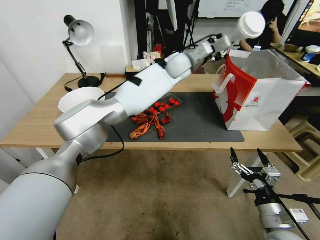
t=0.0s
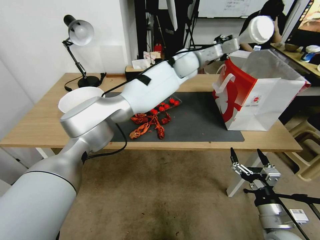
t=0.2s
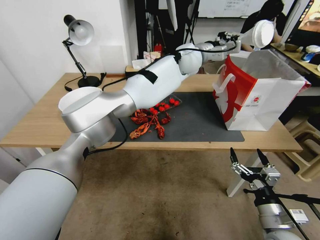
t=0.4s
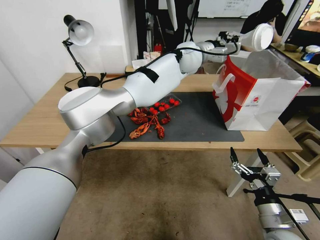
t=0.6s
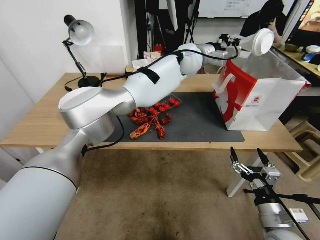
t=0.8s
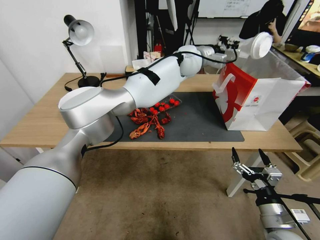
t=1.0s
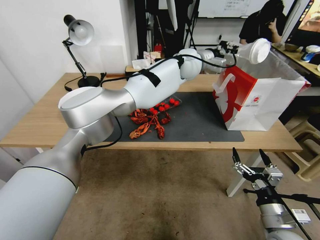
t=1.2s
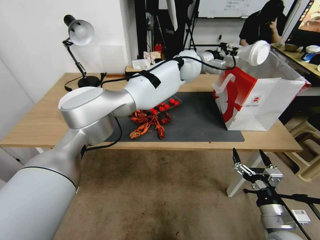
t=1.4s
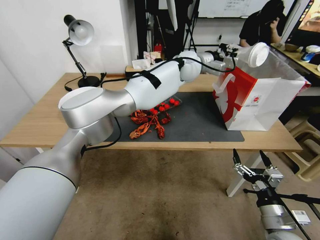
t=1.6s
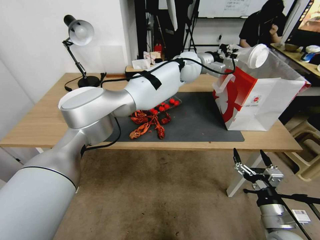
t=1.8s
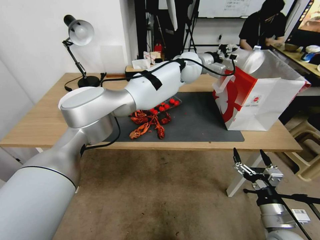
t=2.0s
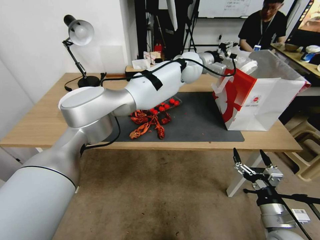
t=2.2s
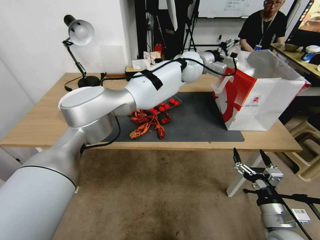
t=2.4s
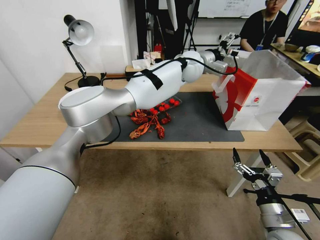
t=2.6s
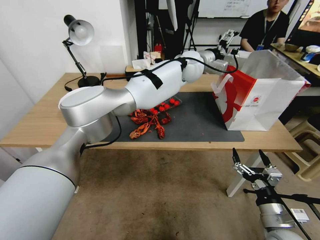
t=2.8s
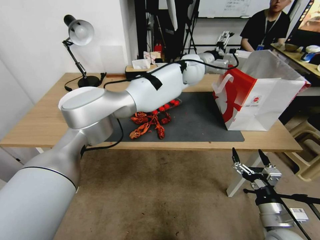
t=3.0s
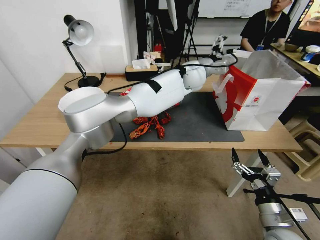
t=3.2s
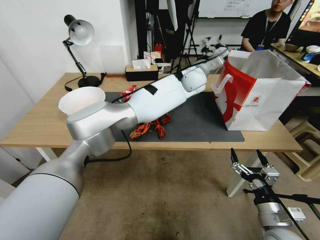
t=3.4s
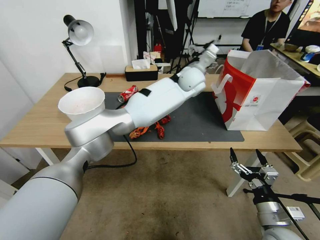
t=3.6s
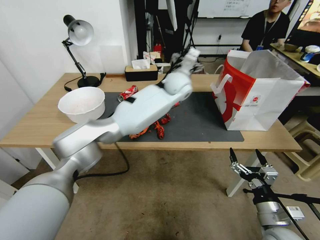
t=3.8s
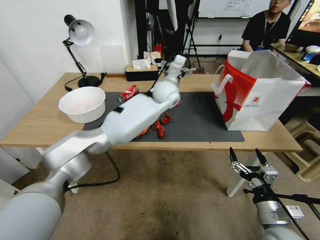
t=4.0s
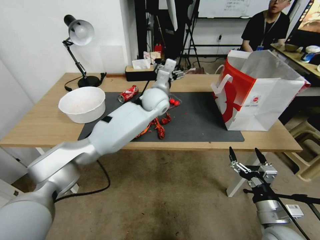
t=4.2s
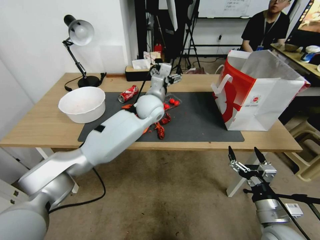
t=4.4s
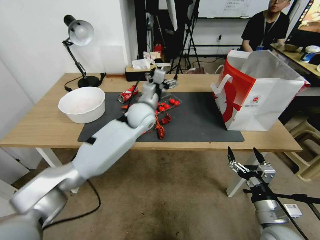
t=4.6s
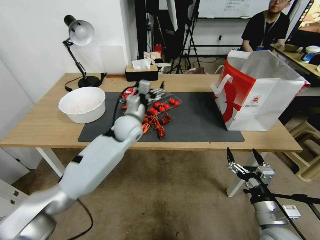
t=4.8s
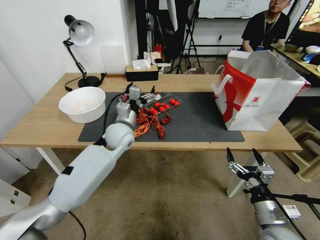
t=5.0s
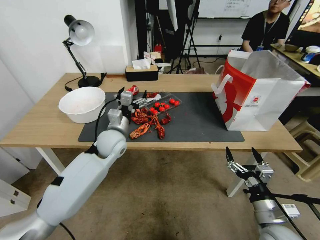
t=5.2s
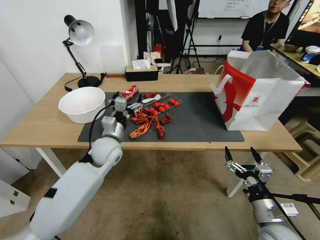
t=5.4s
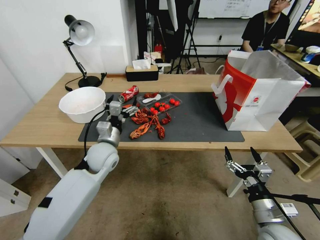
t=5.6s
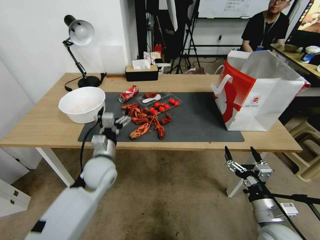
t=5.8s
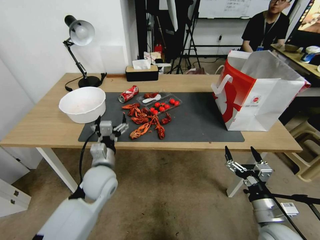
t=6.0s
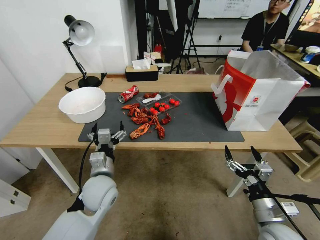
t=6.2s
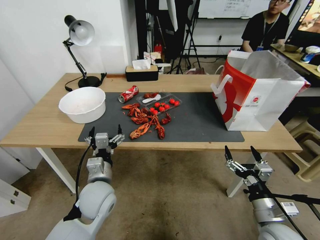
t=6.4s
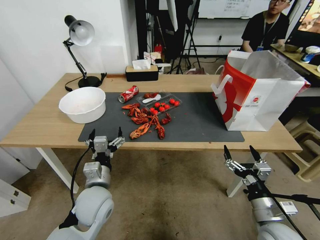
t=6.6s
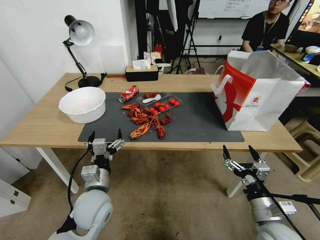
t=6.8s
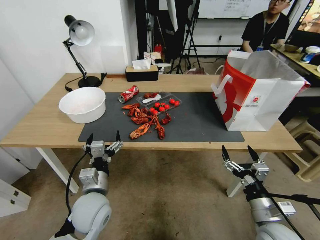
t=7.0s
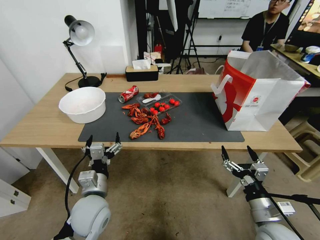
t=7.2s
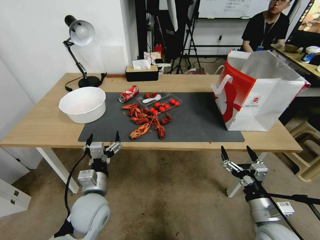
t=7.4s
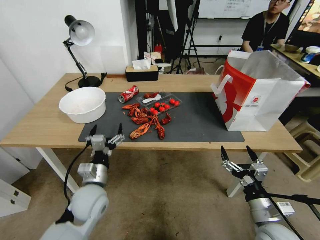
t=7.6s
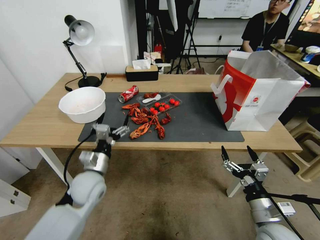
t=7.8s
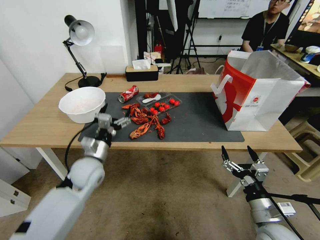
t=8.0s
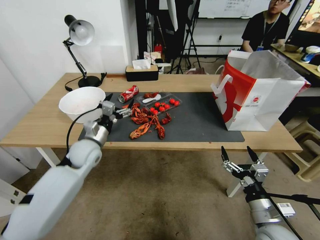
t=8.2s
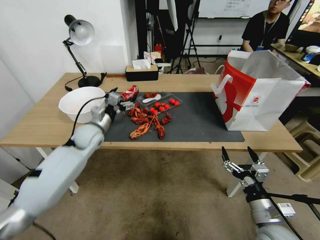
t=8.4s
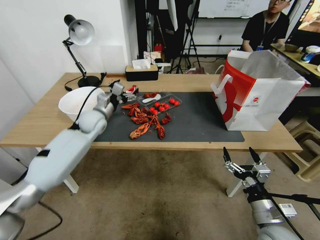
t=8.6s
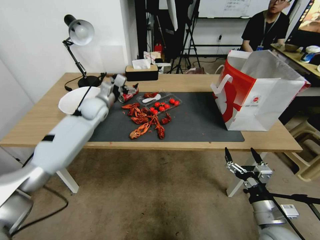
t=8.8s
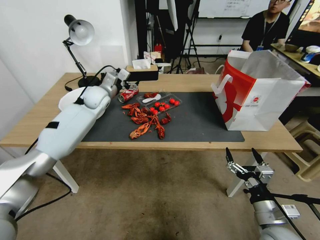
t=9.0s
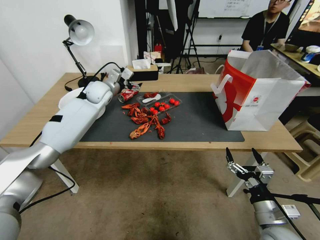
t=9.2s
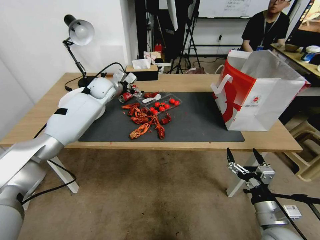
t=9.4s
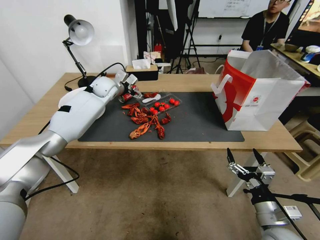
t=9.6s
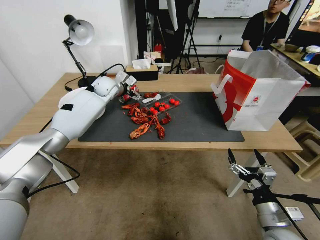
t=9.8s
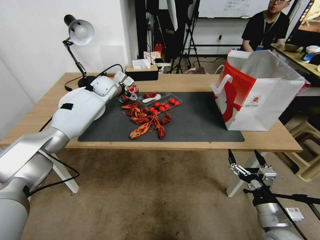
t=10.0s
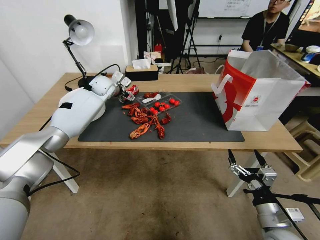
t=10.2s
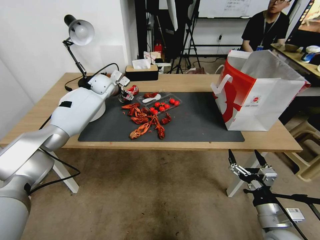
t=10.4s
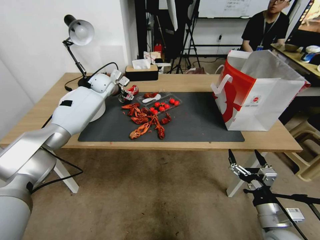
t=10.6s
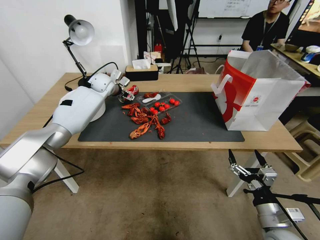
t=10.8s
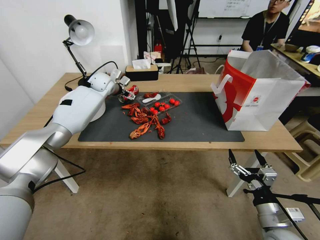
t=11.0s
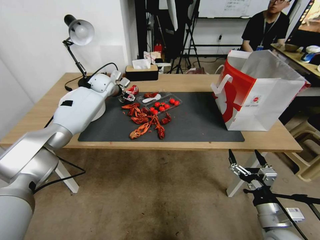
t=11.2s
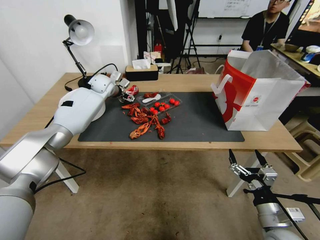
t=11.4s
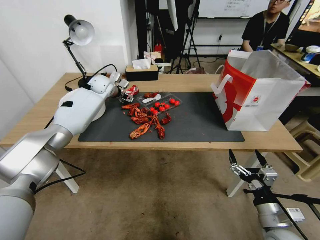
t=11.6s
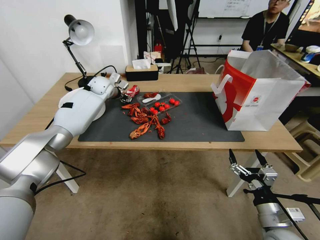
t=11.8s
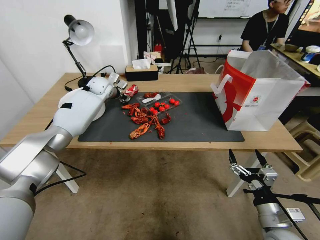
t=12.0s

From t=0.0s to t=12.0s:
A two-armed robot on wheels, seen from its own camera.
From t=1.6s to t=3.0s: The left gripper opens its fingers.
From t=3.0s to t=4.4s: The left gripper goes approximately 20 cm to the left, downward and backward.
From t=4.4s to t=6.0s: The left gripper shifts approximately 25 cm to the left, backward and downward.
From t=6.0s to t=7.6s: The left gripper travels backward by approximately 10 cm.
From t=7.6s to t=9.0s: The left gripper travels forward and upward by roughly 35 cm.
From t=9.0s to t=10.4s: The left gripper goes roughly 5 cm forward.
From t=10.4s to t=12.0s: The left gripper closes up.

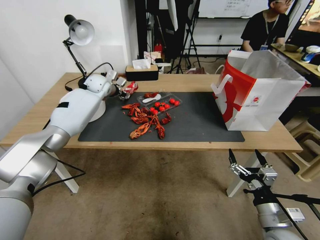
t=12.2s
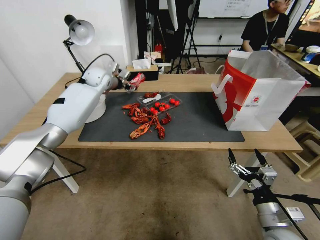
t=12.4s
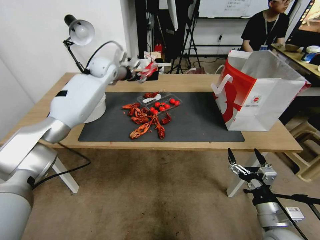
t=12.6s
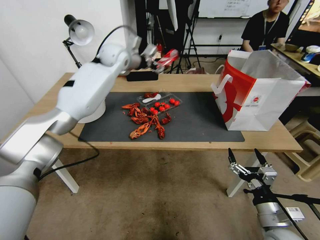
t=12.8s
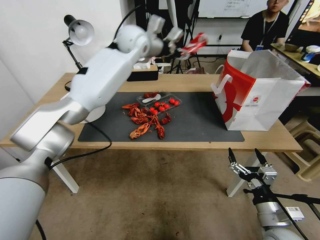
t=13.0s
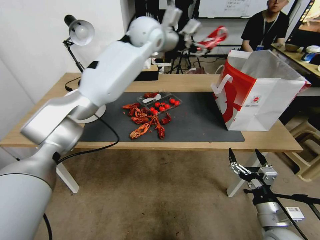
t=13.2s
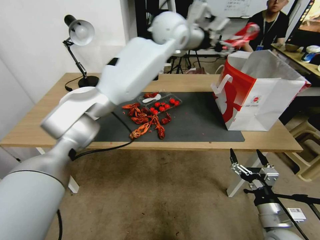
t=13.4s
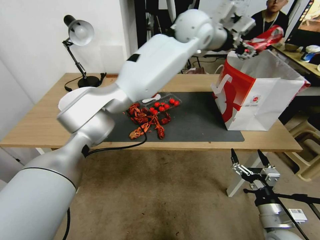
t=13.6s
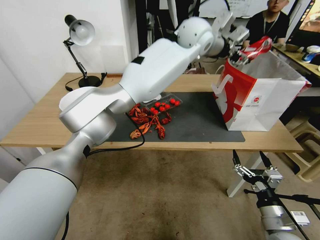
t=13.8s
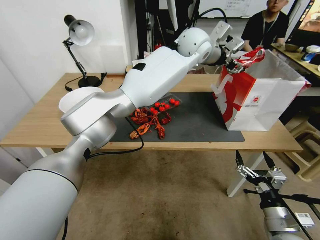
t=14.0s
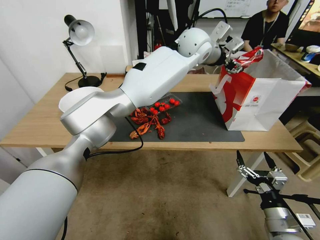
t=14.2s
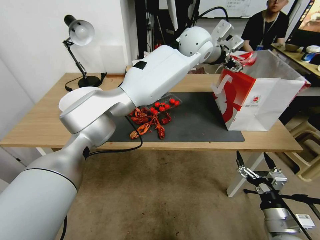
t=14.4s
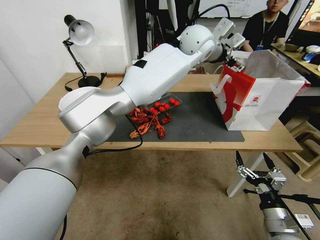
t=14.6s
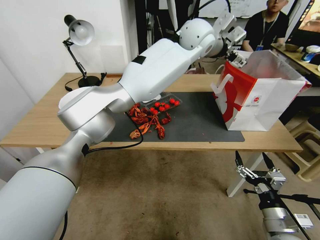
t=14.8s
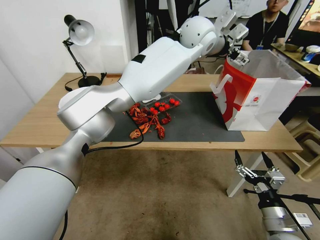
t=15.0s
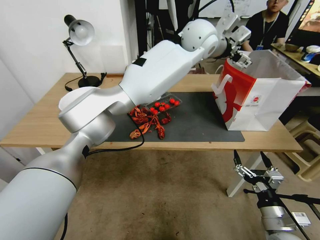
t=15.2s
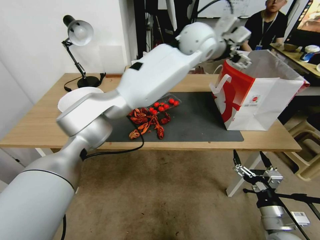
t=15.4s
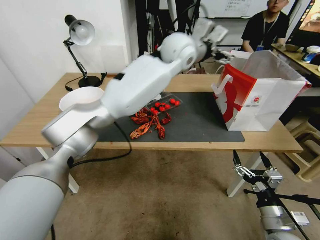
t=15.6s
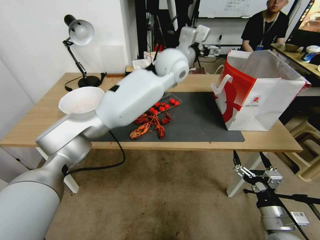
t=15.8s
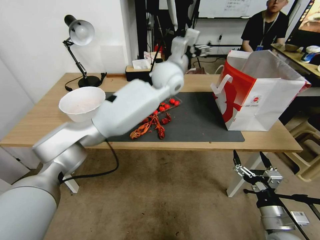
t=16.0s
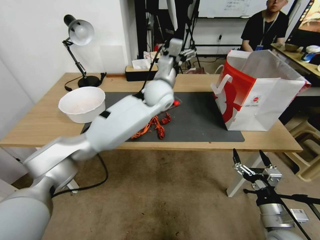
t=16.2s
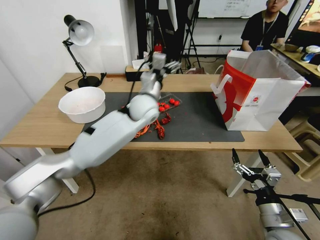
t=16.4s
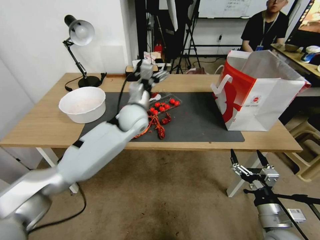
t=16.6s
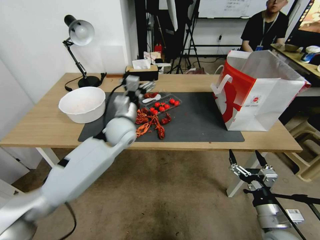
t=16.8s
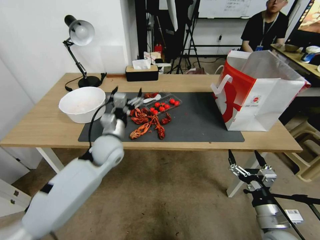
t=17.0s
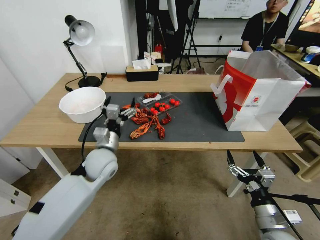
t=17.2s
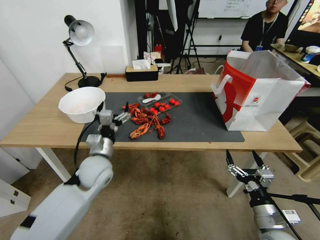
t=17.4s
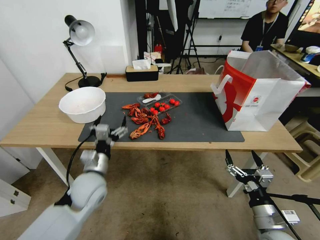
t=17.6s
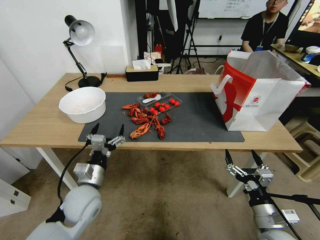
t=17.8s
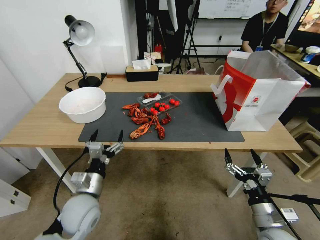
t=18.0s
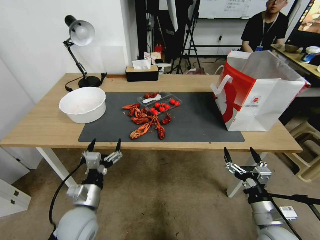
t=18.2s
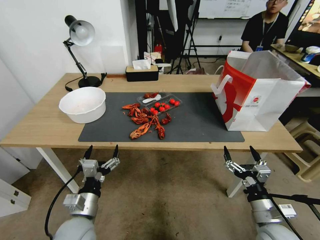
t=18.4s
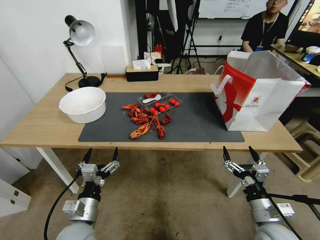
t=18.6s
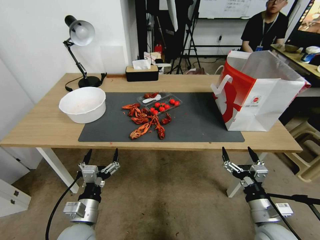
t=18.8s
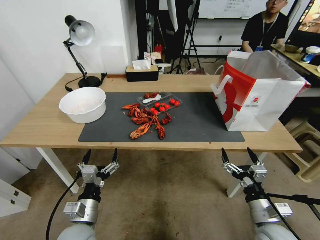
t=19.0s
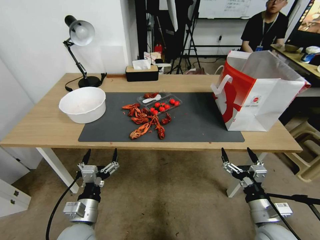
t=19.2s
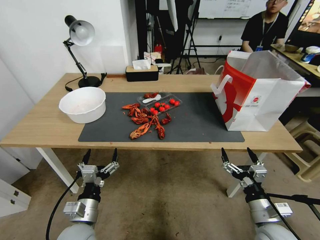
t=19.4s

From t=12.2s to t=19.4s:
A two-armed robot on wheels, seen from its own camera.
From t=12.2s to t=13.6s: The left gripper moves to the right and upward, about 40 cm.
From t=13.6s to t=15.0s: The left gripper opens up.
From t=15.0s to t=16.6s: The left gripper heads downward, to the left and backward, covering roughly 30 cm.
From t=16.6s to t=18.0s: The left gripper goes some 30 cm backward, downward and to the left.
From t=18.0s to t=19.4s: The left gripper moves backward, approximately 5 cm.

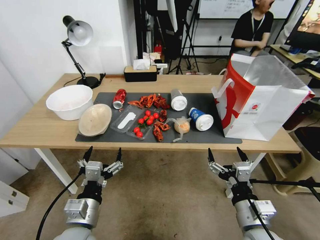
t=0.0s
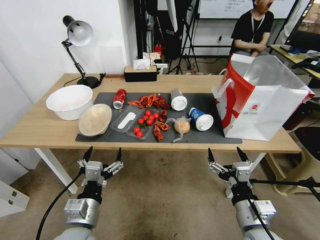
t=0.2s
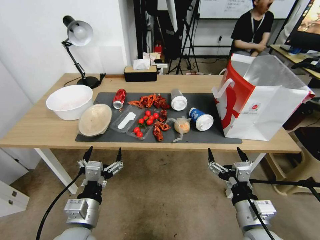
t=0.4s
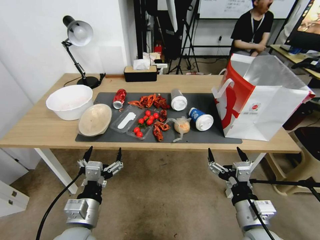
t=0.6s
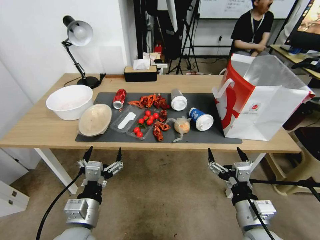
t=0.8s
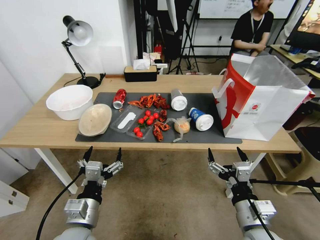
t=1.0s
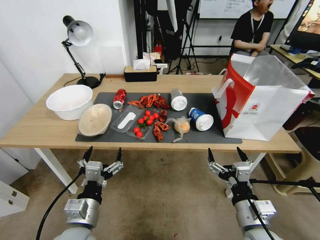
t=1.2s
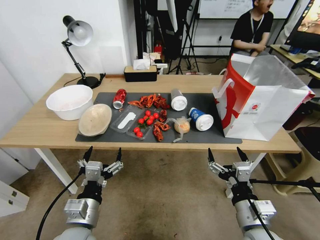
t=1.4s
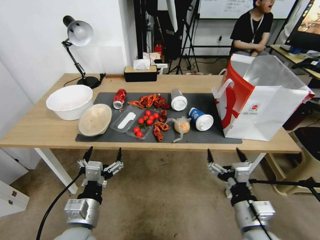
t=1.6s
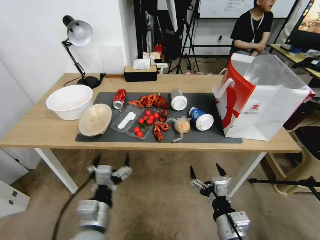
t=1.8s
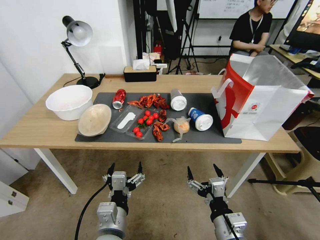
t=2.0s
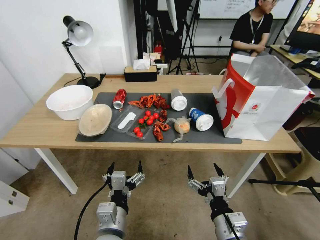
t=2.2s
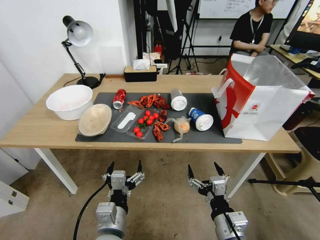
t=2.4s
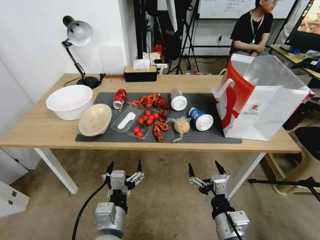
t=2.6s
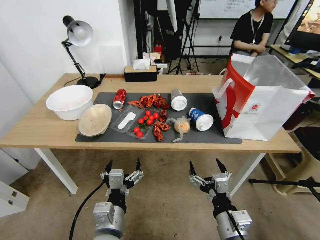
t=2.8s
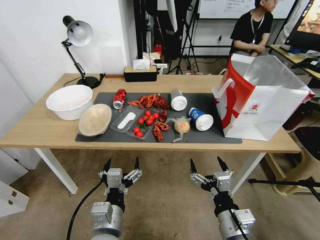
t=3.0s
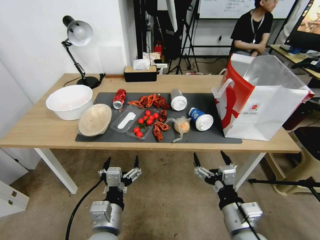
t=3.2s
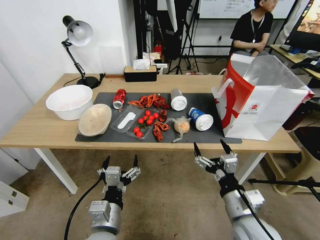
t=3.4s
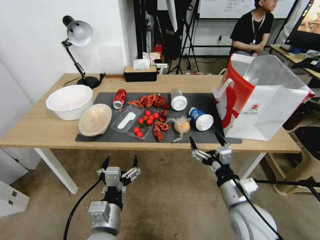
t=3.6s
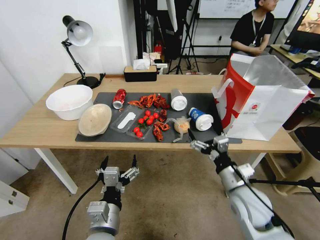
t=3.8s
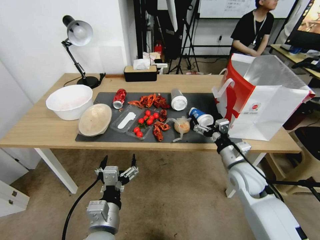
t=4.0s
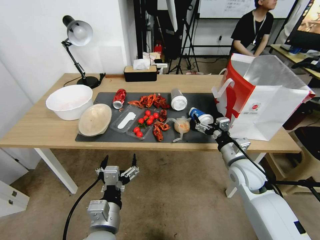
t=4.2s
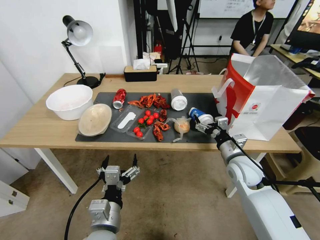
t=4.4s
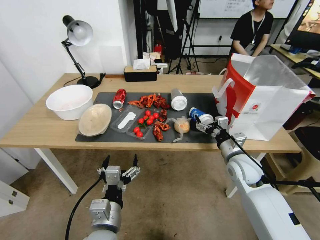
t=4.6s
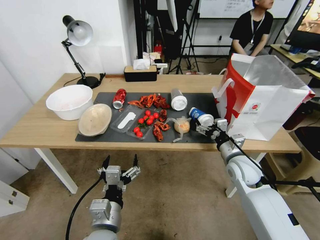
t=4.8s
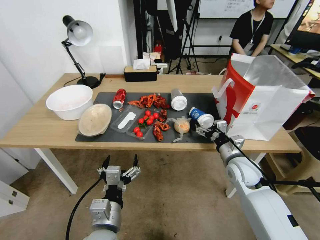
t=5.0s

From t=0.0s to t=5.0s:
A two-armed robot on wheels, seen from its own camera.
From t=1.6s to t=3.4s: The left gripper travels to the right by some 5 cm.
From t=3.4s to t=5.0s: The right gripper moves forward, some 20 cm.
